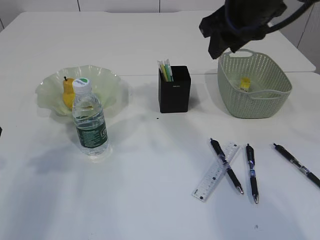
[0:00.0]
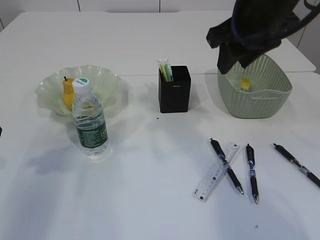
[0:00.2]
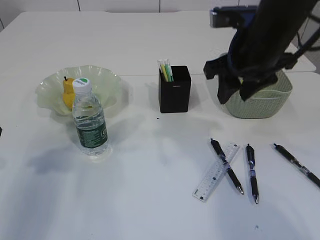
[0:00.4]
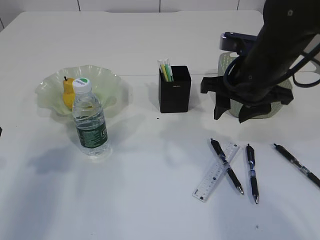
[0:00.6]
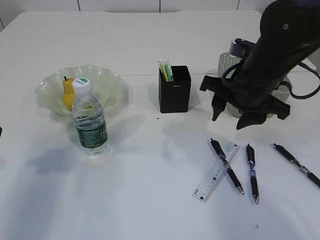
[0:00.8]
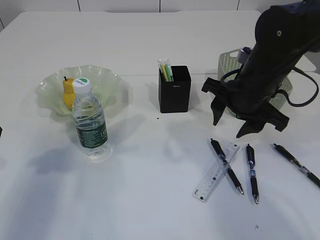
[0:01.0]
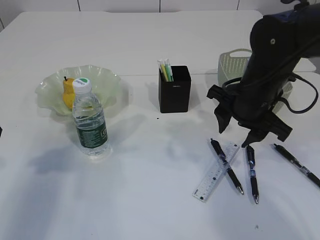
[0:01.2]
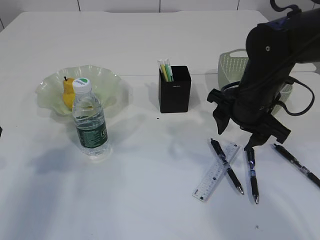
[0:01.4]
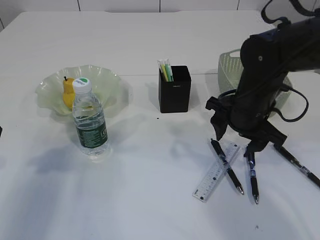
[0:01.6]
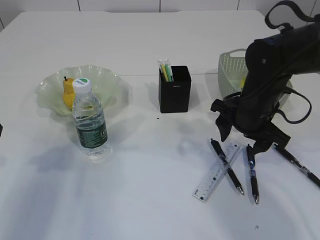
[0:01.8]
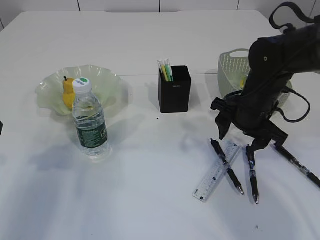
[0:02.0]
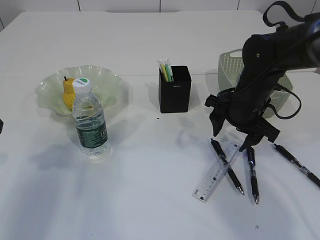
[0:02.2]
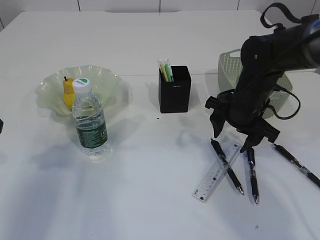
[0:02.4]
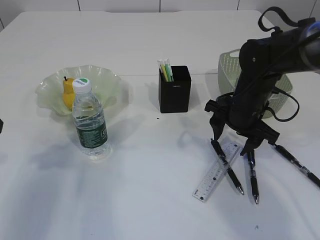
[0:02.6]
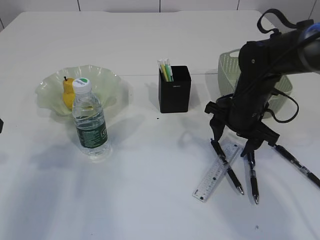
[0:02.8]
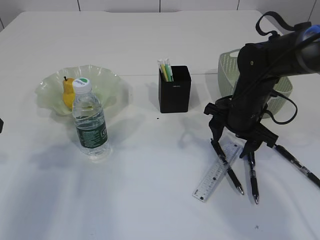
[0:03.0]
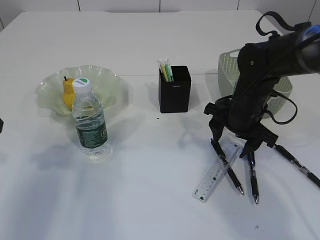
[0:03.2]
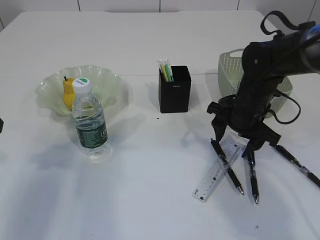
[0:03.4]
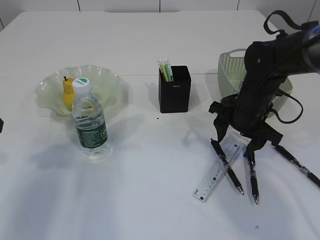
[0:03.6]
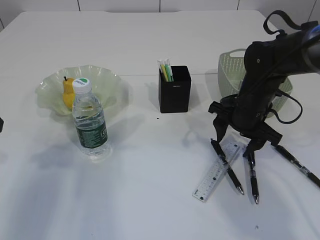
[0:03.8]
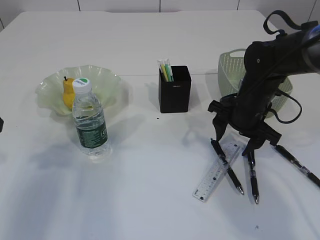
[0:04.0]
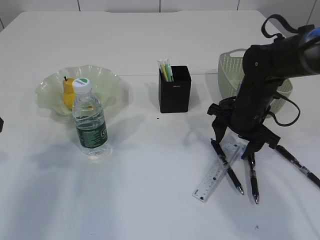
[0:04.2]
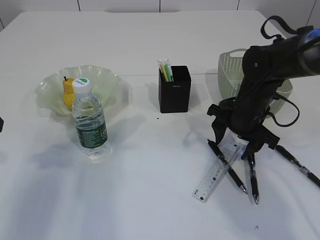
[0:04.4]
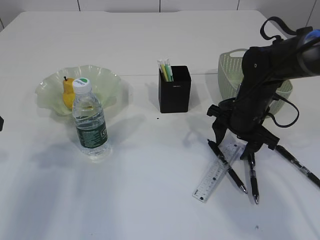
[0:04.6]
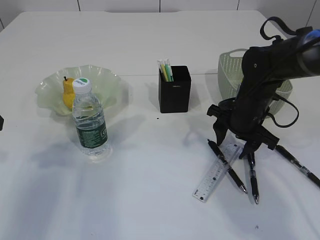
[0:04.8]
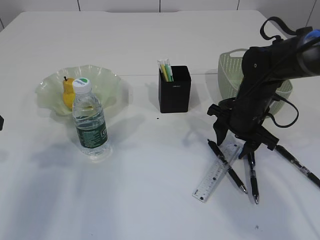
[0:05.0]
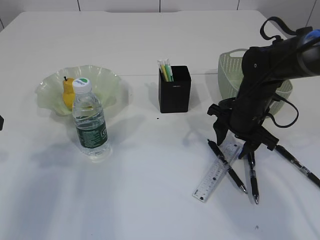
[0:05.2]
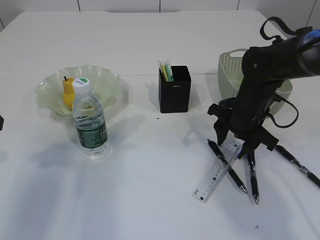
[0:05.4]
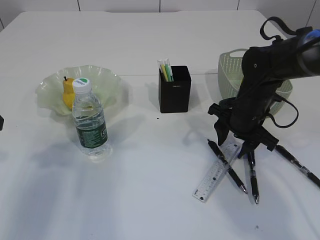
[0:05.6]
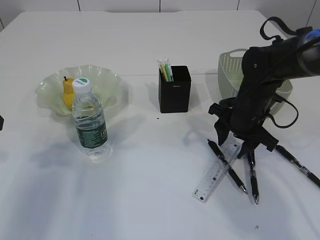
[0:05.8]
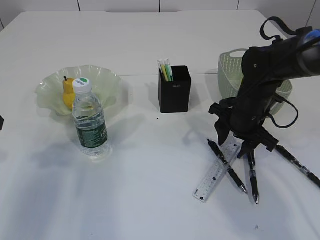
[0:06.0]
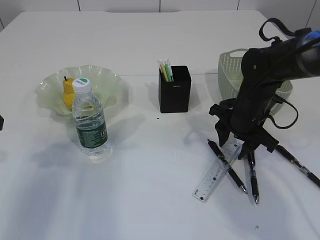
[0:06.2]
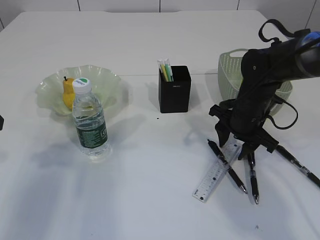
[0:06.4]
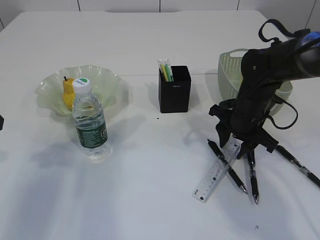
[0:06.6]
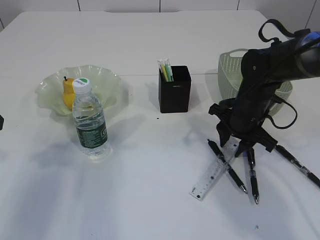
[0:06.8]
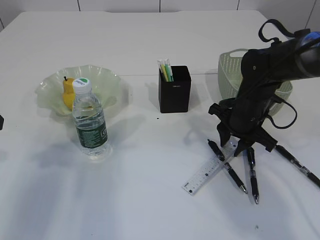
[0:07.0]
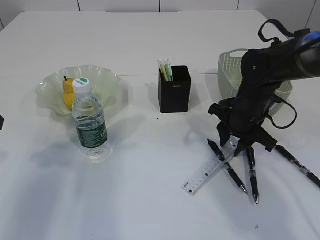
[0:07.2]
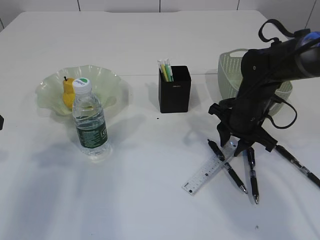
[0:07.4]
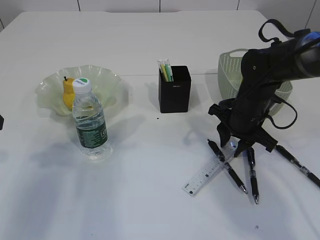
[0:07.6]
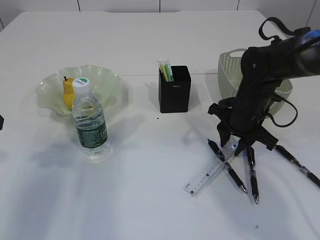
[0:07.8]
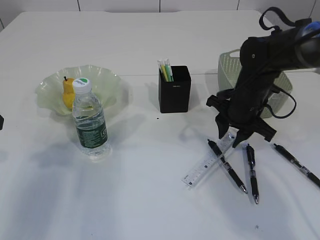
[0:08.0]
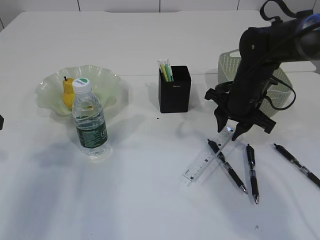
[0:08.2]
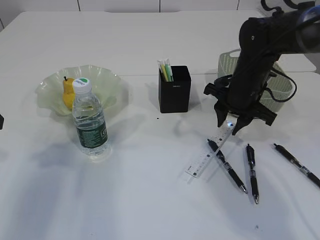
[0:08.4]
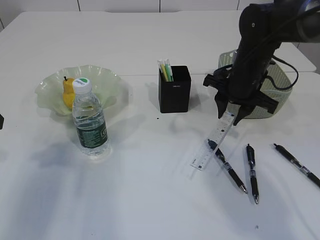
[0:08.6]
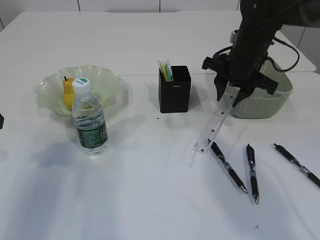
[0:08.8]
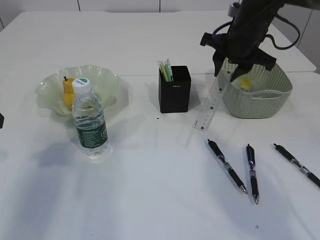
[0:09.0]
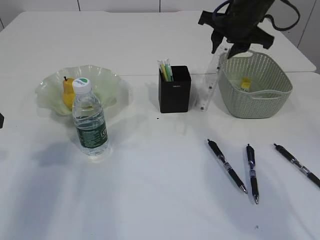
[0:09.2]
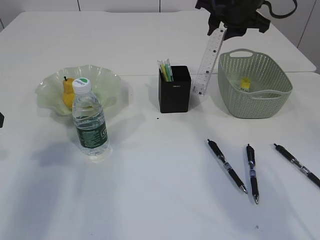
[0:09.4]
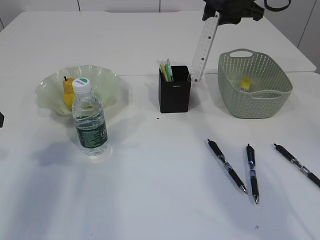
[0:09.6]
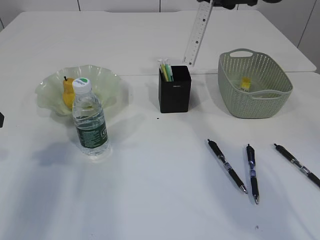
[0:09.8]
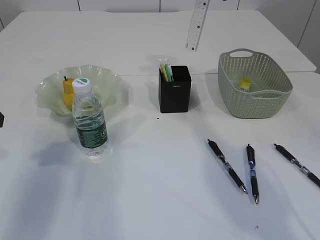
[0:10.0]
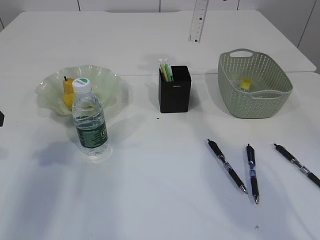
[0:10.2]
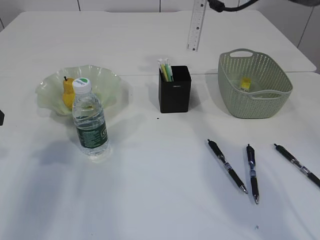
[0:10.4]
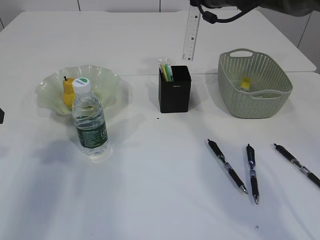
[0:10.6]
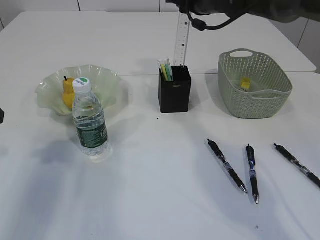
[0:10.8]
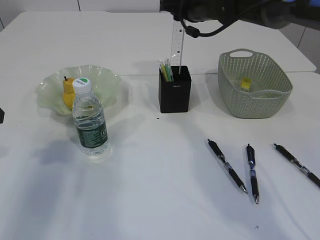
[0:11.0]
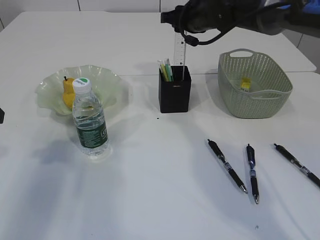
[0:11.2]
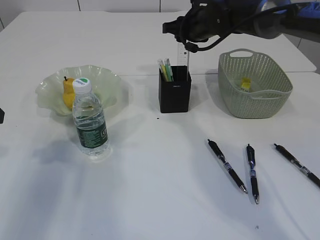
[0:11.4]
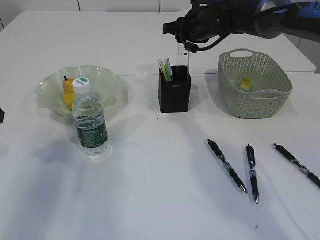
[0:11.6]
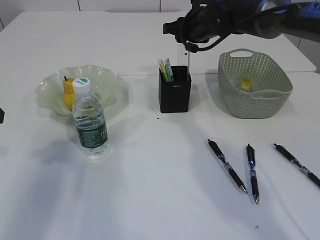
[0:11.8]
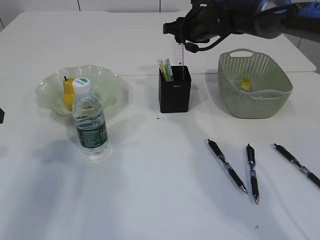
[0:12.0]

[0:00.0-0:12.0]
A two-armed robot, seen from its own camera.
Step, 0:00.0 to 0:08.2: pick up the ruler.
0:00.0 to 0:01.6: The right gripper shifts some 15 cm downward.
0:01.6 to 0:03.0: The right gripper ends up roughly 5 cm from where it was.
0:03.0 to 0:04.4: Neither gripper changes place.
0:04.4 to 0:06.0: The grippers make only small movements.
0:06.0 to 0:07.6: The two grippers keep their place.
0:07.6 to 0:09.0: The right gripper moves upward and forward, roughly 15 cm.
0:09.0 to 0:10.4: The right gripper moves forward and upward, about 10 cm.
0:10.4 to 0:12.0: The right gripper goes some 10 cm downward.

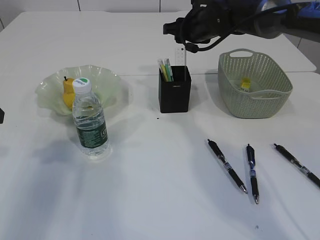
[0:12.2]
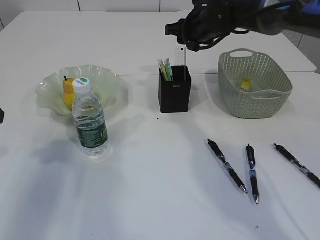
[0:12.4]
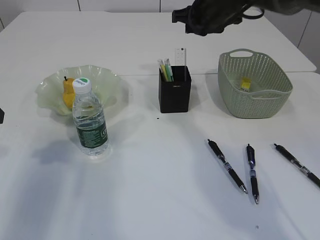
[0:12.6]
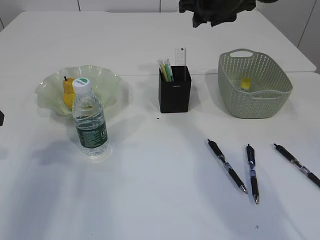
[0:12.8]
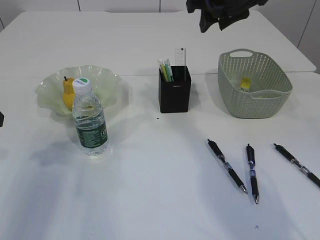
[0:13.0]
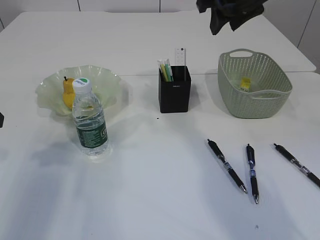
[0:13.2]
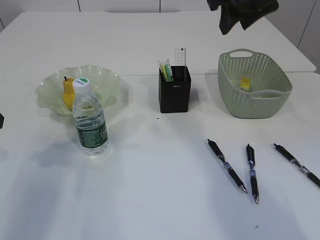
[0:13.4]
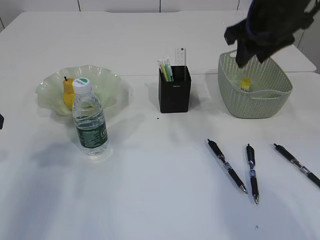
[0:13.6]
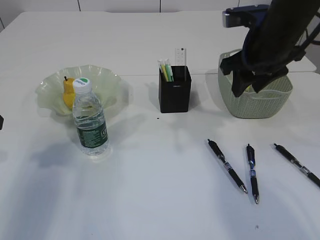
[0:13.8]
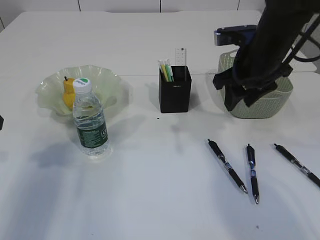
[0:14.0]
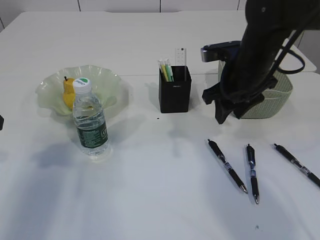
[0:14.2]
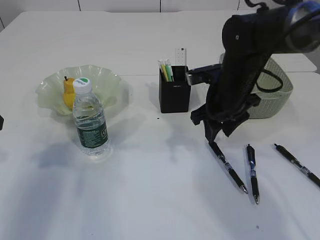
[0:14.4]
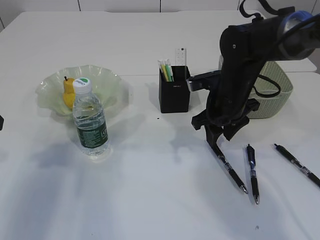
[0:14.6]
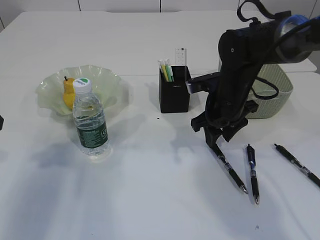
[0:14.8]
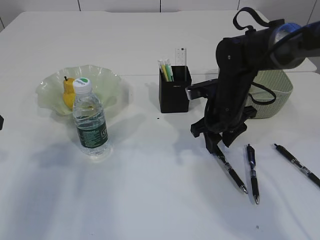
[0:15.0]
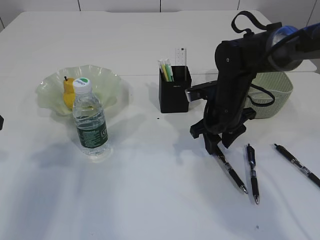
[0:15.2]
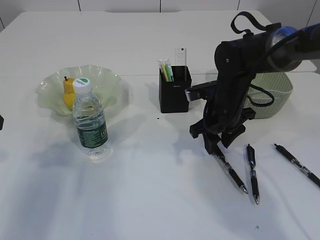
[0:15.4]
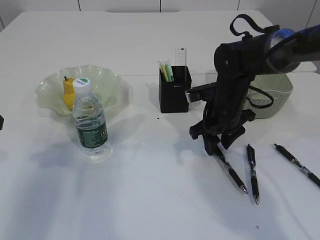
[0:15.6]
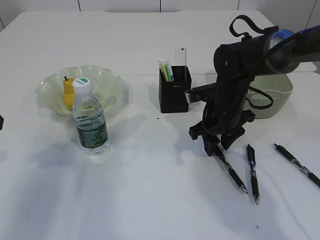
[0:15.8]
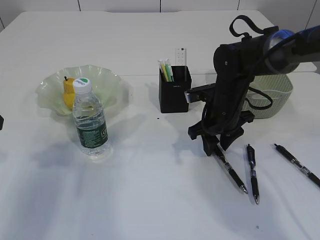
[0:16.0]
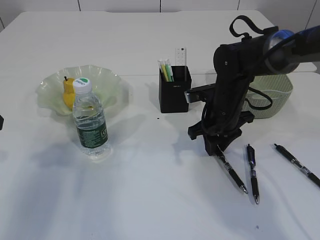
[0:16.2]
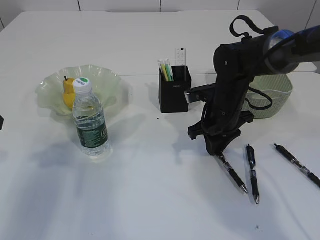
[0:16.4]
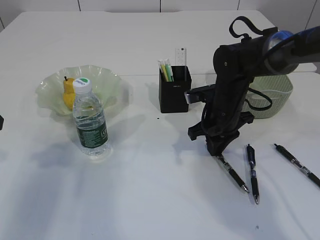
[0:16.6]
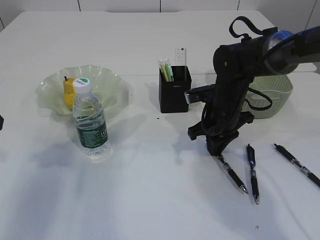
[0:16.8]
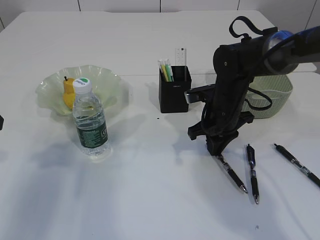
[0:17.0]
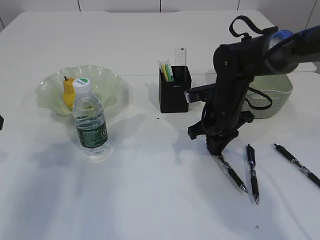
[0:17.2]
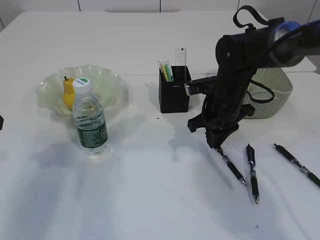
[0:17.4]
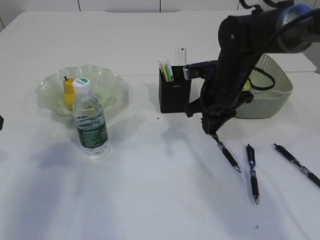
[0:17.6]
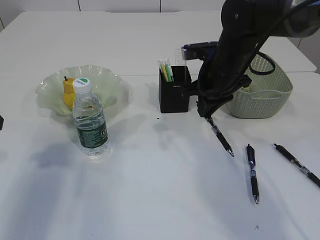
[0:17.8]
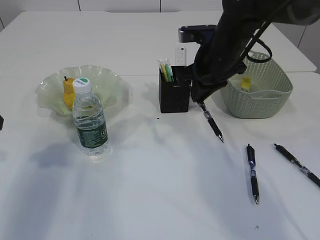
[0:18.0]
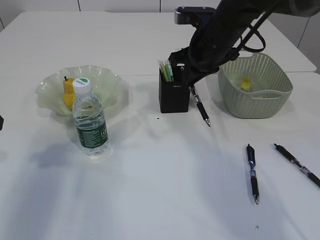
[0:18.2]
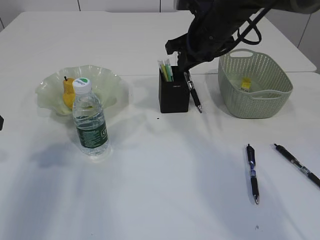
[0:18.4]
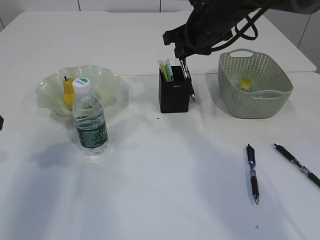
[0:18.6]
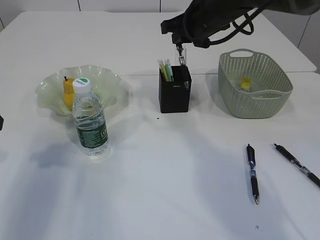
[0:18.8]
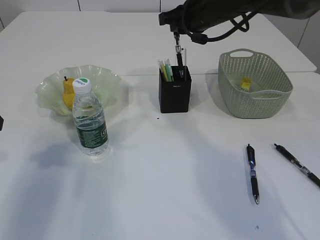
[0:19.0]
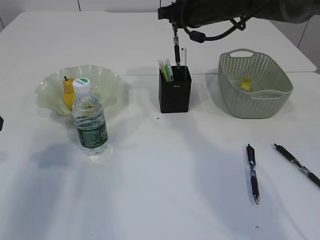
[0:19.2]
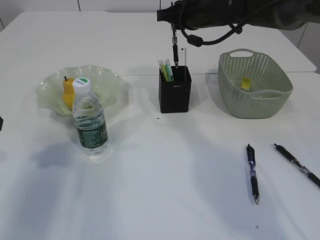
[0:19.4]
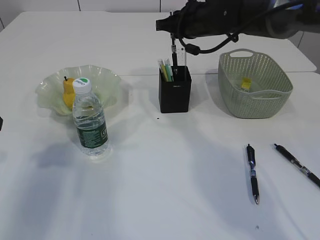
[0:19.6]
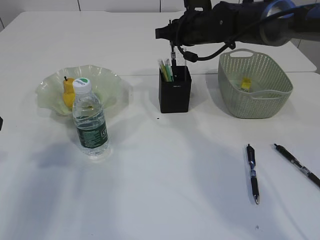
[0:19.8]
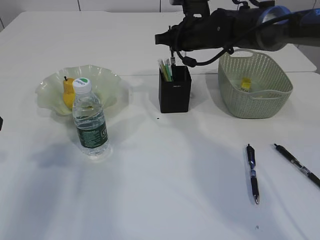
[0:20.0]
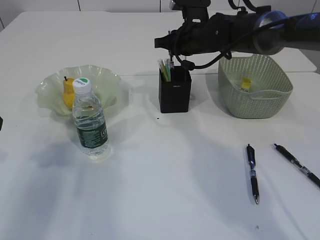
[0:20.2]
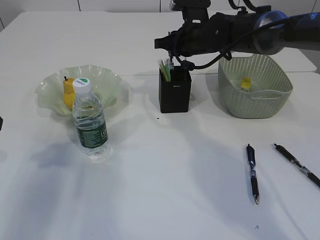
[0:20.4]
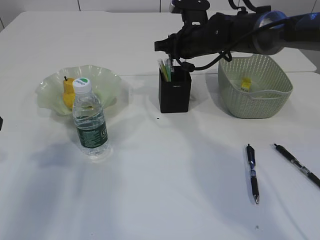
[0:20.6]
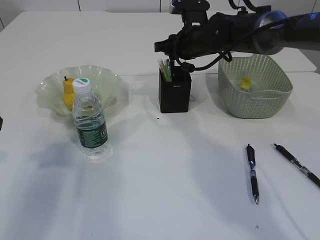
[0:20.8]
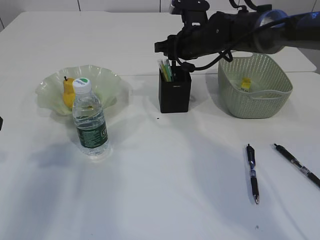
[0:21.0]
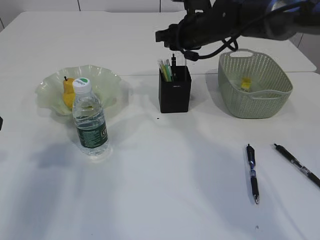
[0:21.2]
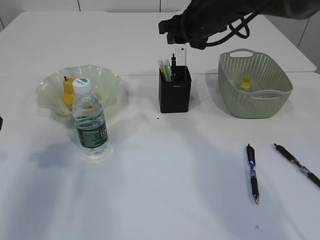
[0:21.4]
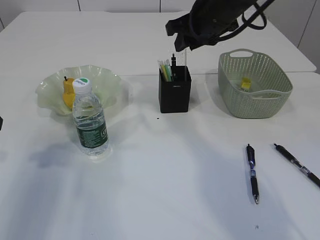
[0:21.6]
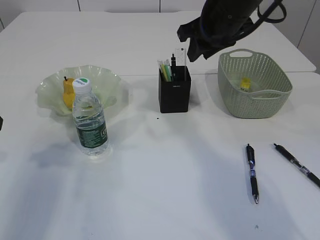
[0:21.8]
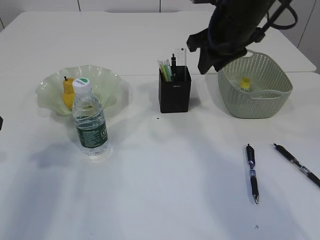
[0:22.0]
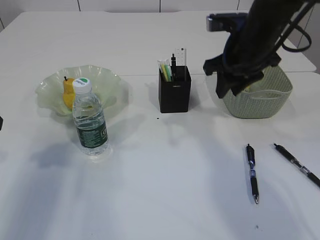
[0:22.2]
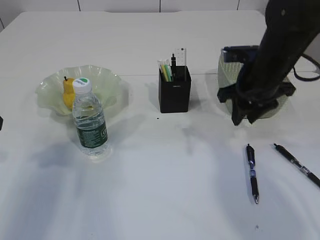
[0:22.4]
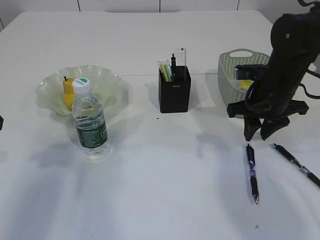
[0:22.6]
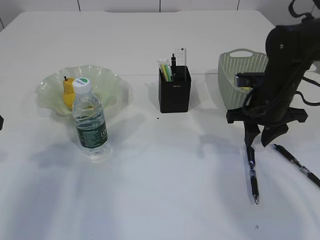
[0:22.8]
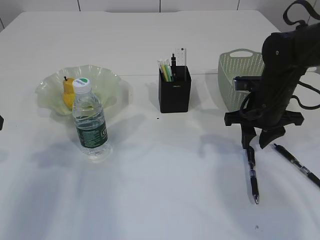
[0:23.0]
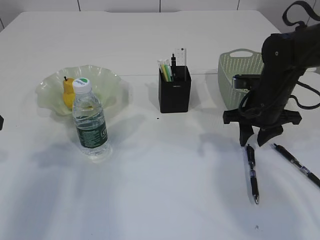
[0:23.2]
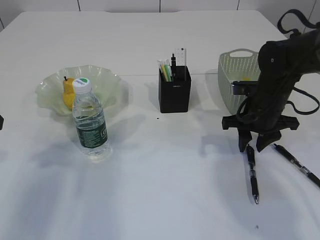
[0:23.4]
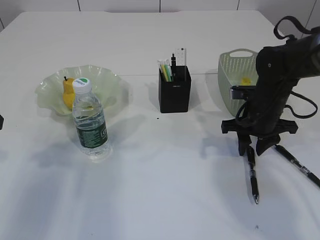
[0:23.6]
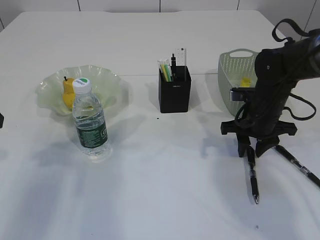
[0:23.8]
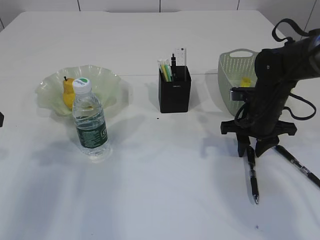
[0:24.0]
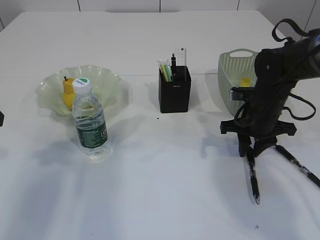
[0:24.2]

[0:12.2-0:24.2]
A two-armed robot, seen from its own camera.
Step, 0:12.6 to 0:17.4: Pick up the pen with right arm.
Step, 0:17.6 to 0:21.2: Place the pen into the pen holder.
0:12.2 to 0:13.8: The right gripper is displaced backward and to the right by roughly 15 cm.
0:13.8 to 0:15.2: The right gripper goes approximately 15 cm downward.
0:15.2 to 0:16.6: The right gripper closes up.
0:16.6 to 0:18.2: The right gripper travels upward by approximately 10 cm.
0:18.2 to 0:19.8: The right gripper heads forward, covering some 5 cm.
0:19.8 to 0:21.2: The right gripper opens its fingers.
0:21.2 to 0:22.6: The right gripper travels backward, to the right and downward by approximately 15 cm.
0:22.6 to 0:24.2: The right gripper moves downward, some 5 cm.
